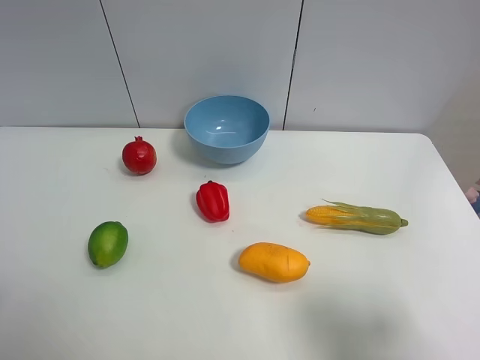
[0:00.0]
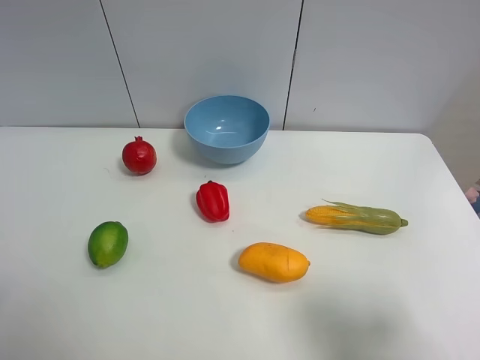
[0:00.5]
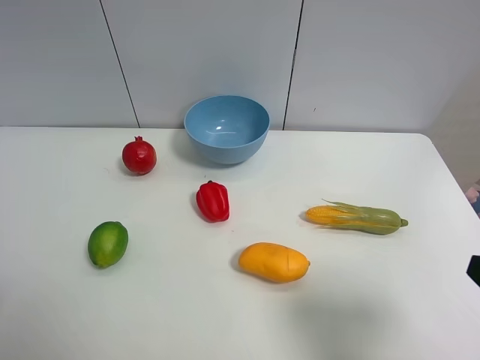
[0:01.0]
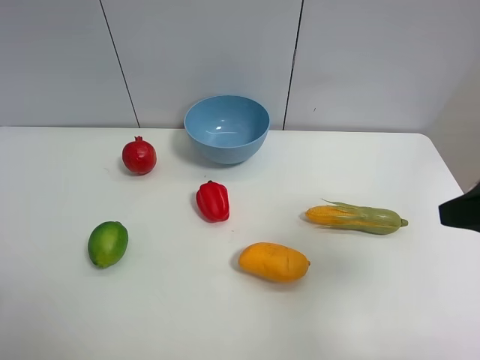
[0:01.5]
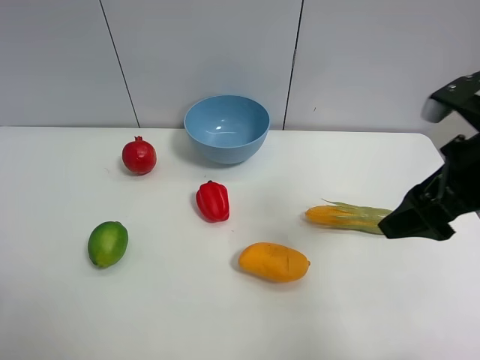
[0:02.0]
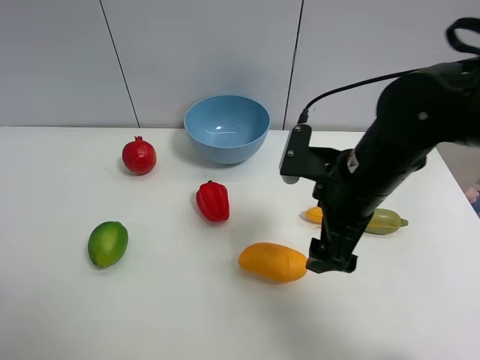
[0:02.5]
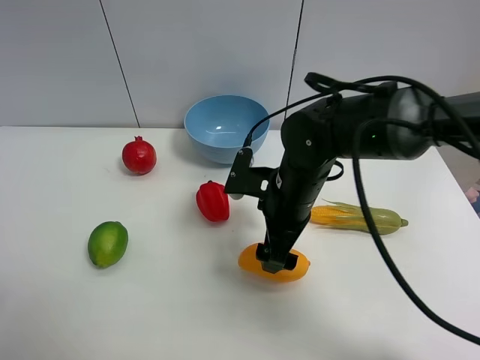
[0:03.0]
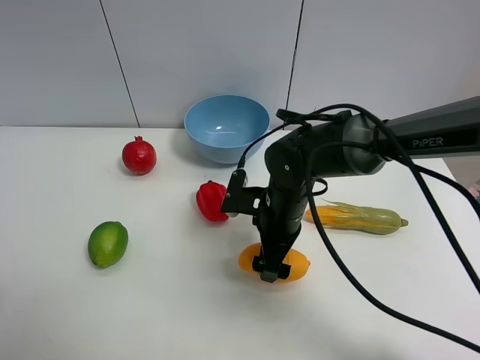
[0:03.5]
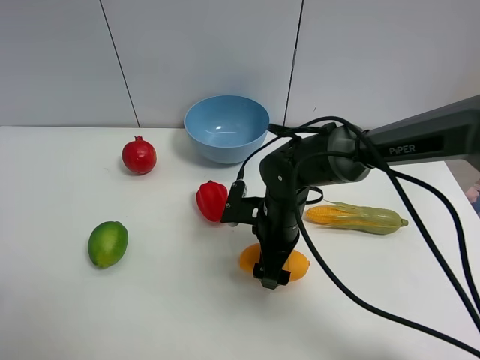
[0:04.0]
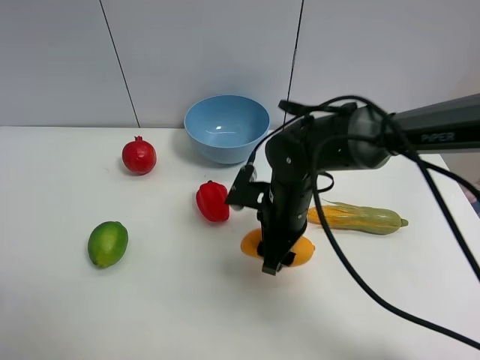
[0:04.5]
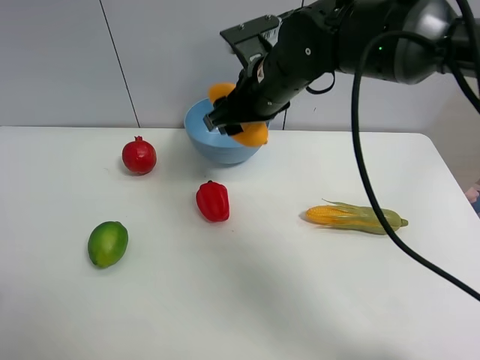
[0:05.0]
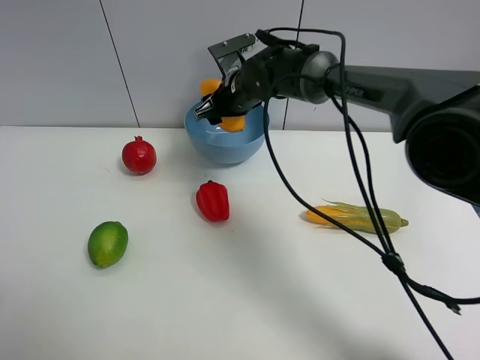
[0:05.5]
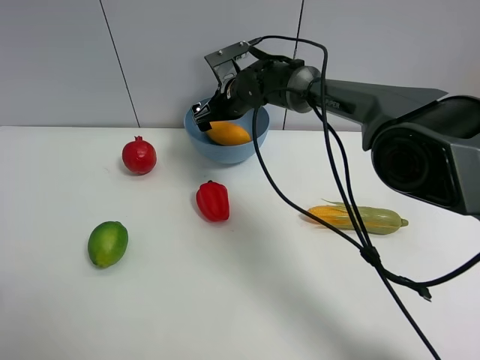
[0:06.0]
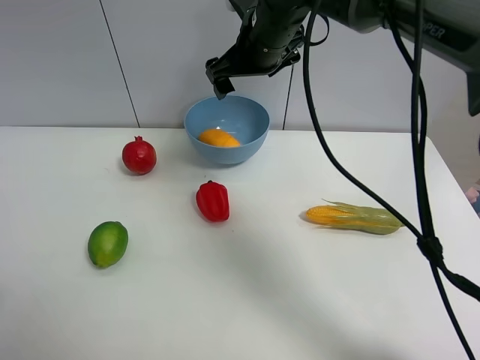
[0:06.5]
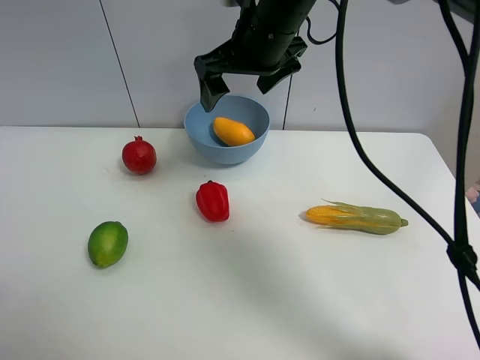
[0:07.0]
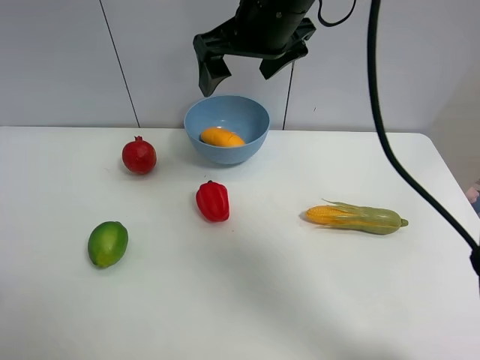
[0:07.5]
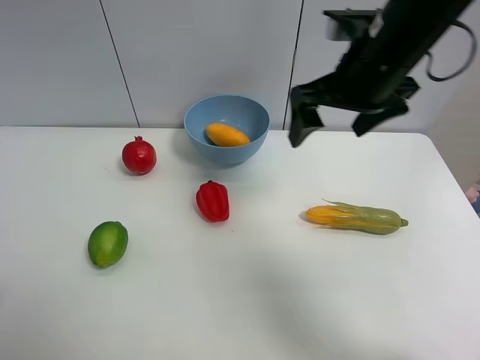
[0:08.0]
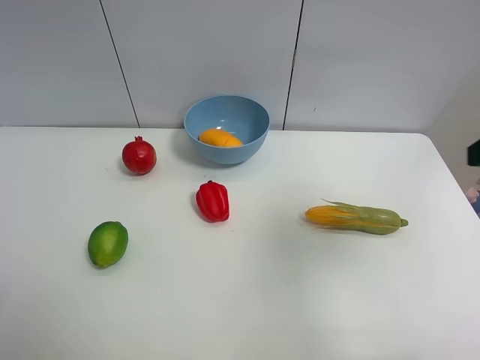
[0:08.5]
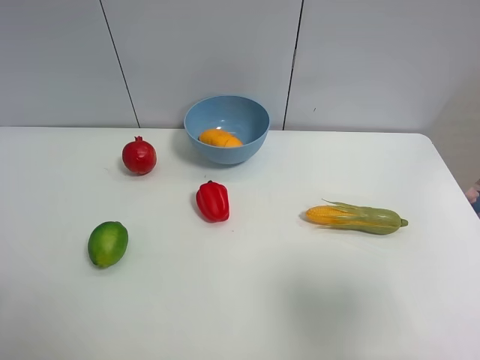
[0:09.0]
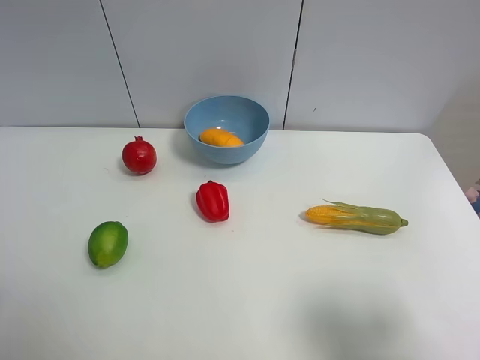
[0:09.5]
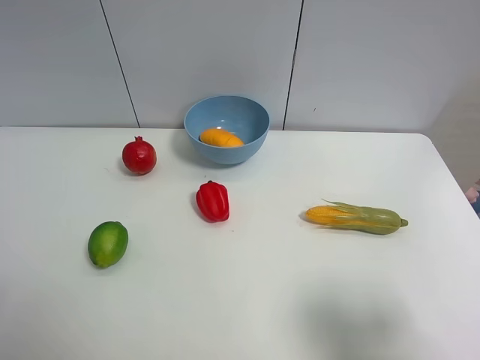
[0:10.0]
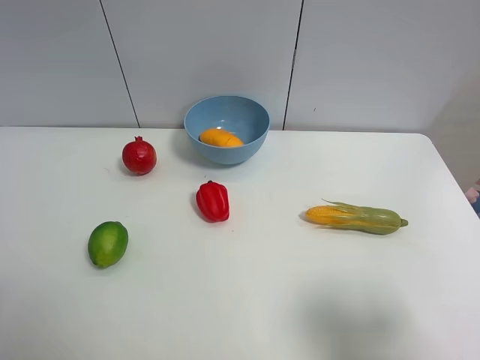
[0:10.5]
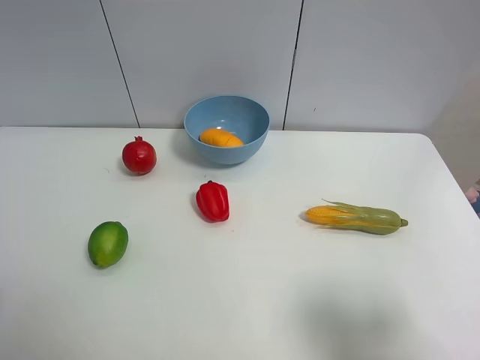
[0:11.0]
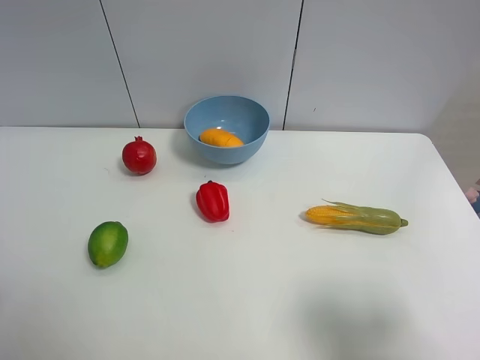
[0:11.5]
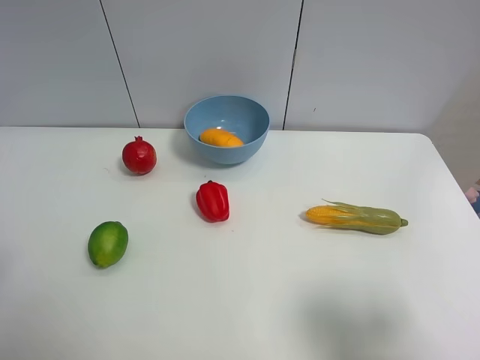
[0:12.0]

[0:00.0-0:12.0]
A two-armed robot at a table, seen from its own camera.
Task of the whole recording: Put the three fruits on the table into a bowl.
Step, 0:00.0 to 0:04.0: Grasp the mango with right gripper.
Step, 0:04.5 to 0:06.0: Place the mango in the blue bowl with right gripper.
0:00.0 to 0:02.0: The right gripper is displaced forward by roughly 20 cm.
0:02.0 to 0:04.0: The right gripper goes about 25 cm downward and to the left.
0:04.0 to 0:06.0: The right gripper is displaced forward by roughly 20 cm, and closes and opens again.
0:06.0 to 0:08.0: The right gripper heads backward, upward and to the right, covering about 30 cm.
0:08.0 to 0:10.0: The right gripper moves backward and to the right, about 30 cm.

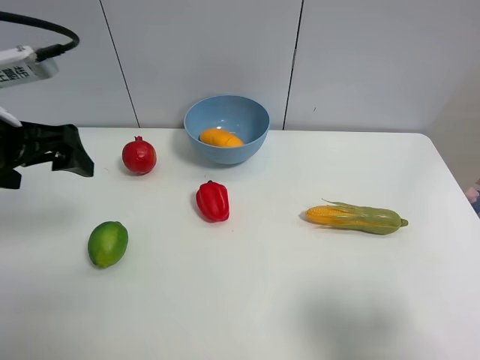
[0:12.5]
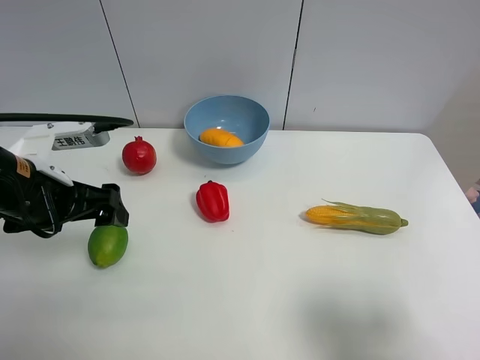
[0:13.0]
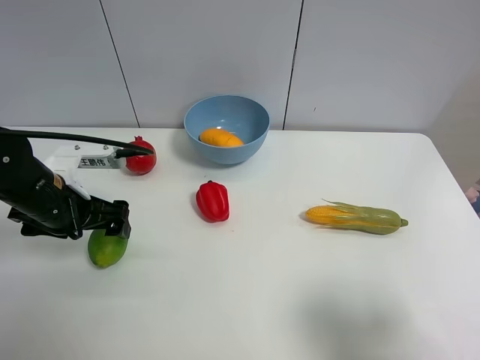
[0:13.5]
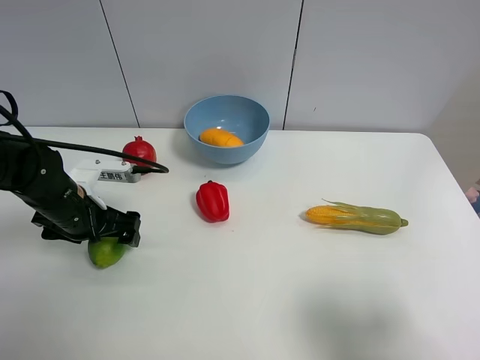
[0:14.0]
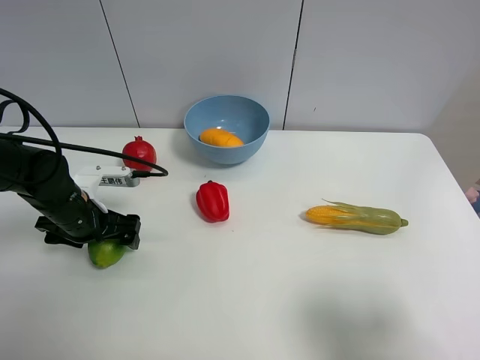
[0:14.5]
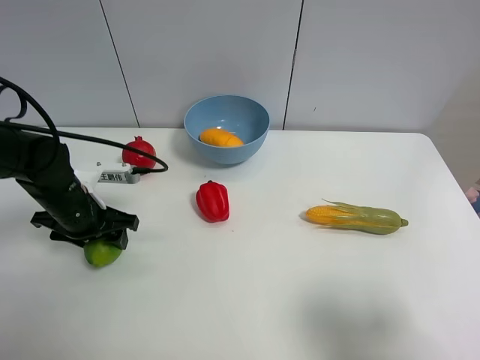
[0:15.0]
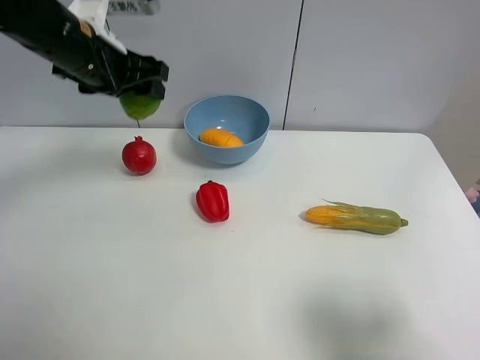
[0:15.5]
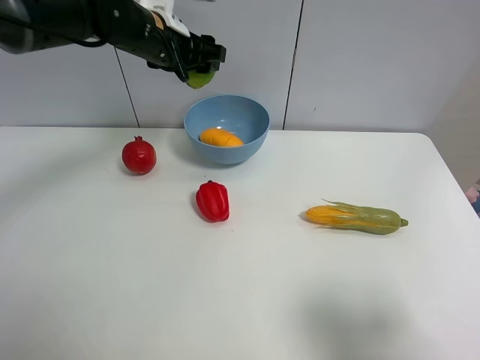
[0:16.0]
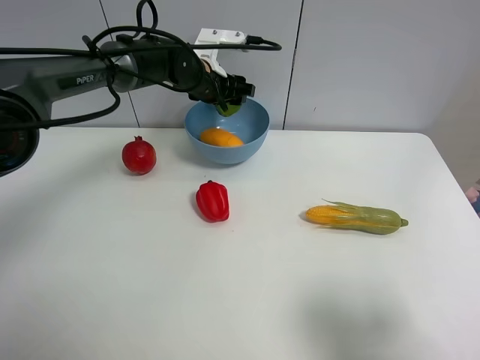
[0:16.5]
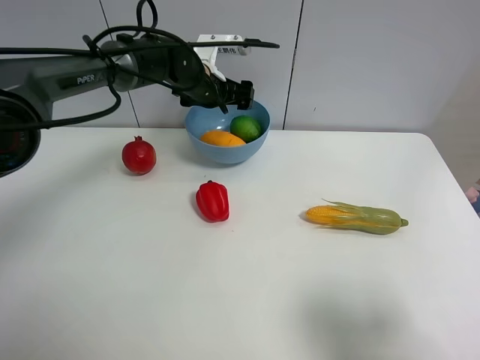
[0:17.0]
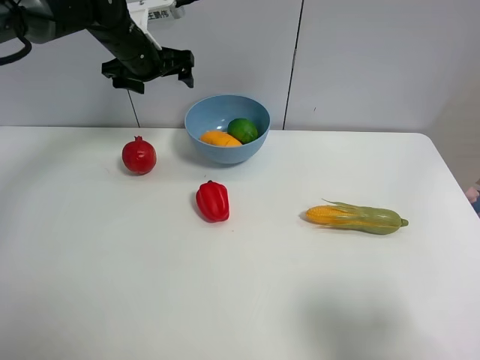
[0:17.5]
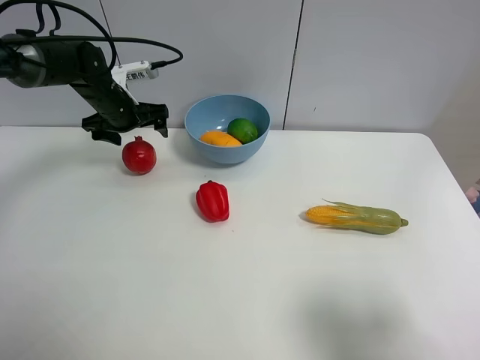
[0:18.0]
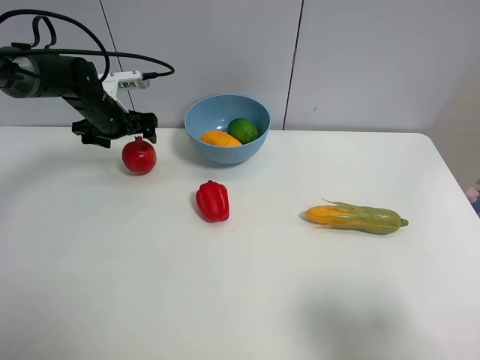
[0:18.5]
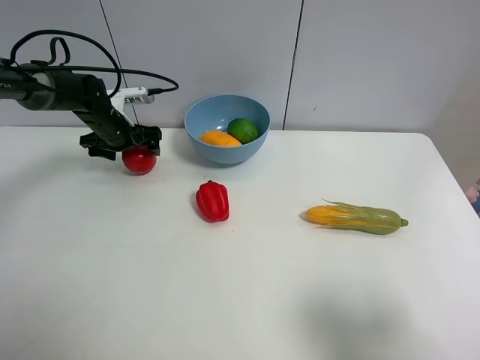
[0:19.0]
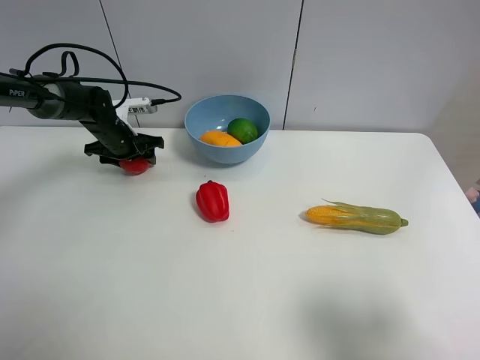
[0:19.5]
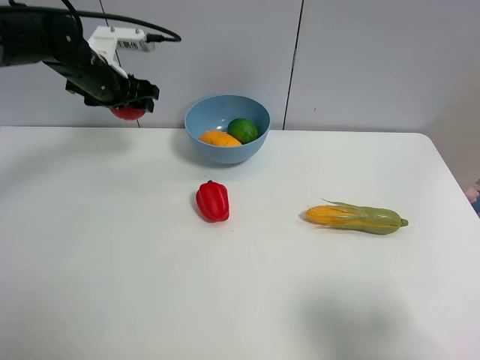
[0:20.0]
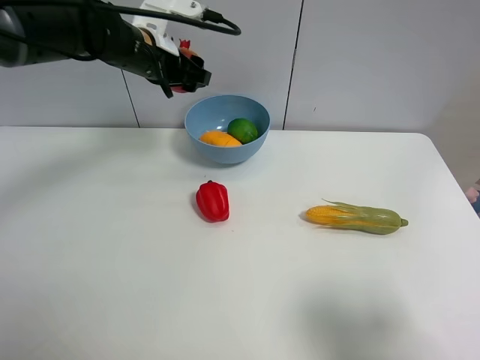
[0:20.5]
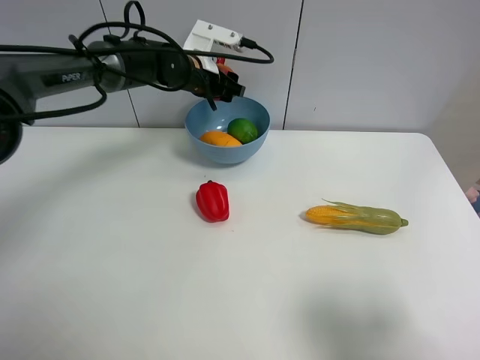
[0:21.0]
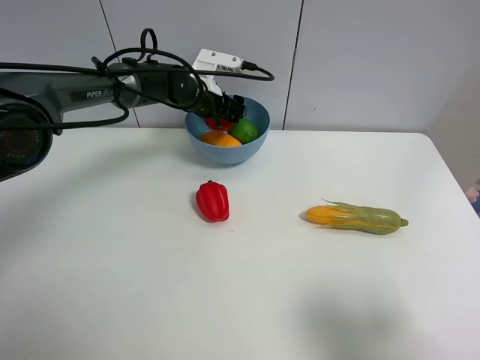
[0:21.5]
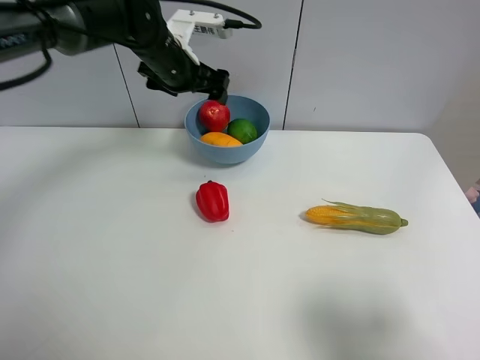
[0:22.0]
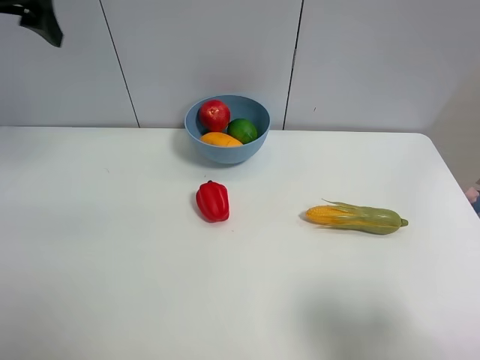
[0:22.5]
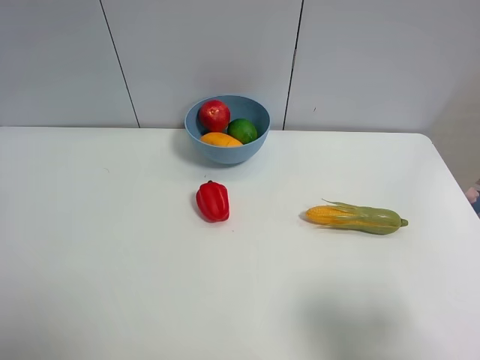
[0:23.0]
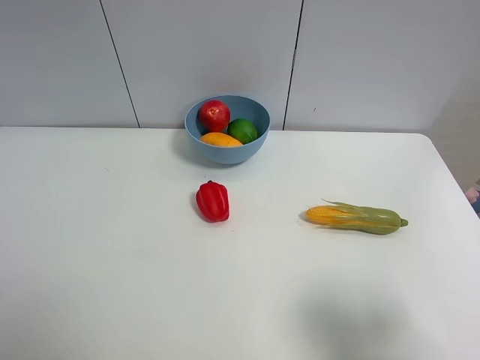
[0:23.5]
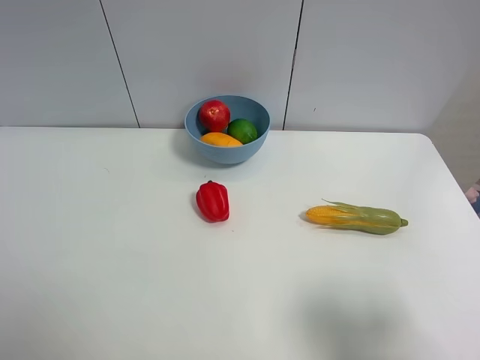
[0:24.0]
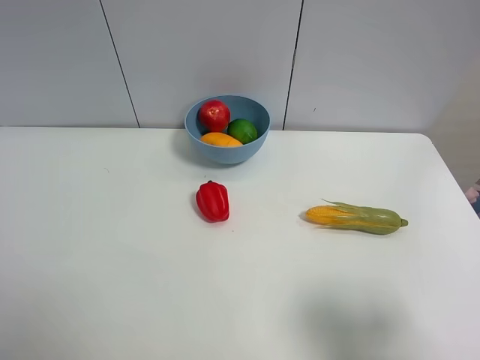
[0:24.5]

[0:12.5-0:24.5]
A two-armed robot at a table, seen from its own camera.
Task of the whole recording: Put the three fruits on the table into a bowl.
Step, 0:12.5 to 0:14.5: Grasp the green lemon with left gripper.
Step, 0:15.0 to 0:16.5: Place the green lemon in the blue bowl with left gripper.
Step, 0:17.0 to 0:19.5: Grasp the pomegranate with left gripper.
Step, 0:20.0 to 0:21.5: Place the pomegranate in the blue bowl with left gripper.
0:12.5 to 0:14.5: The left gripper goes roughly 20 cm downward.
0:14.5 to 0:16.5: The left gripper moves forward, to the right and upward, about 30 cm, and closes up.
0:16.5 to 0:18.5: The left gripper shifts about 20 cm to the left, and opens up.
0:18.5 to 0:20.5: The left gripper shifts approximately 15 cm upward and to the right, and closes.
0:20.5 to 0:22.5: The left gripper goes about 25 cm to the left, upward and backward, and opens its fingers.
0:22.5 to 0:24.5: The left gripper moves backward and downward, roughly 35 cm.
